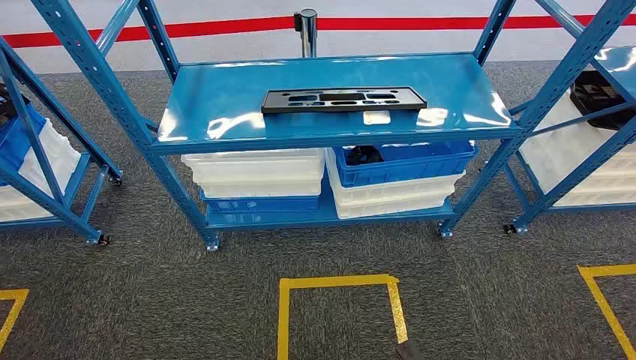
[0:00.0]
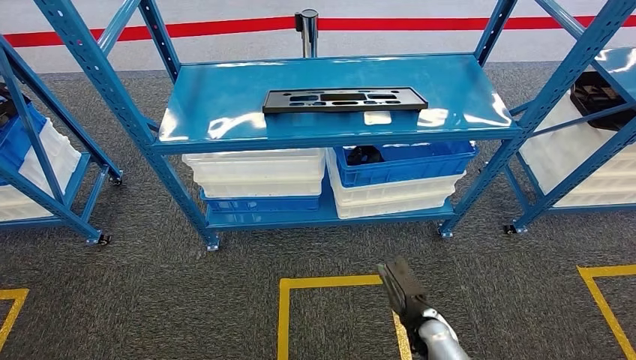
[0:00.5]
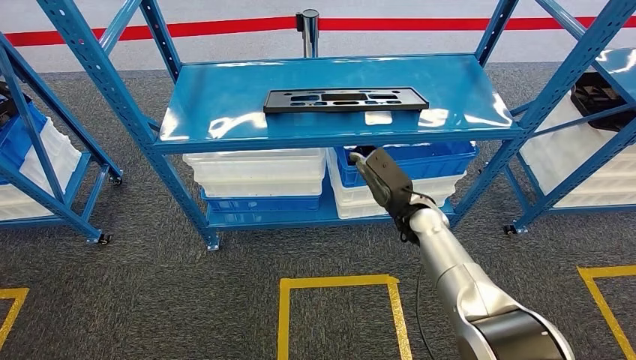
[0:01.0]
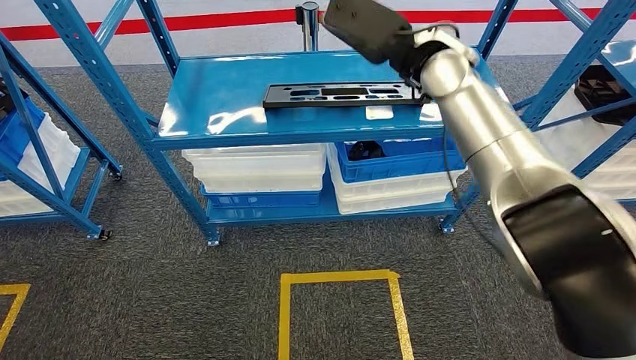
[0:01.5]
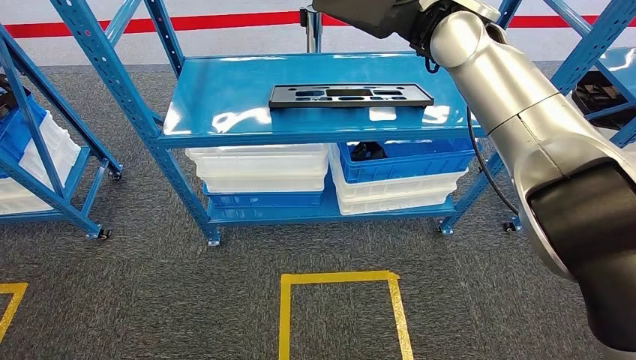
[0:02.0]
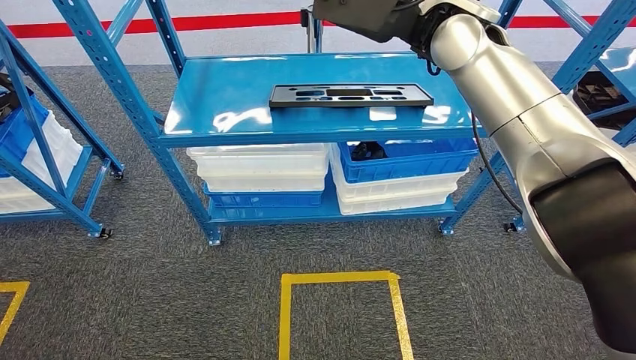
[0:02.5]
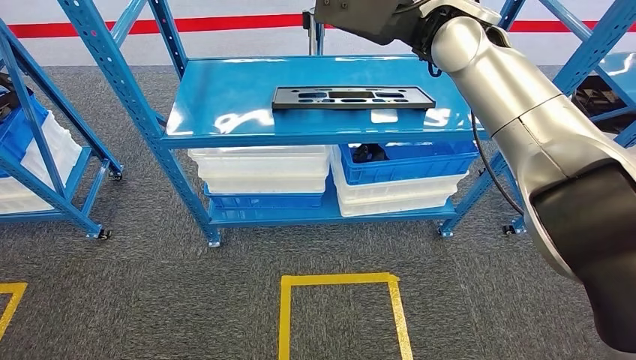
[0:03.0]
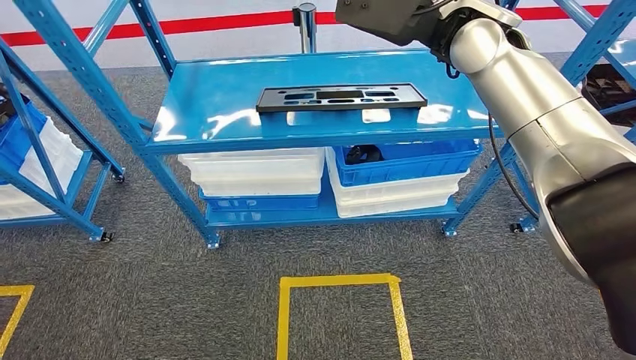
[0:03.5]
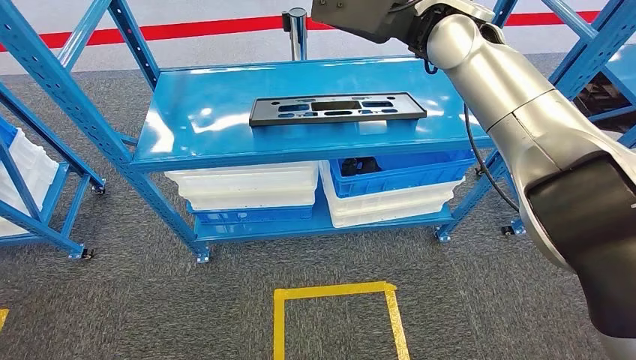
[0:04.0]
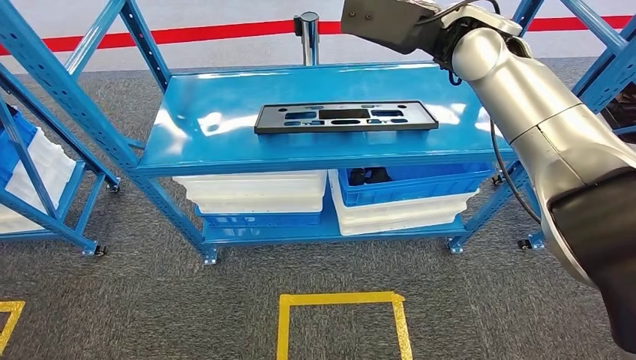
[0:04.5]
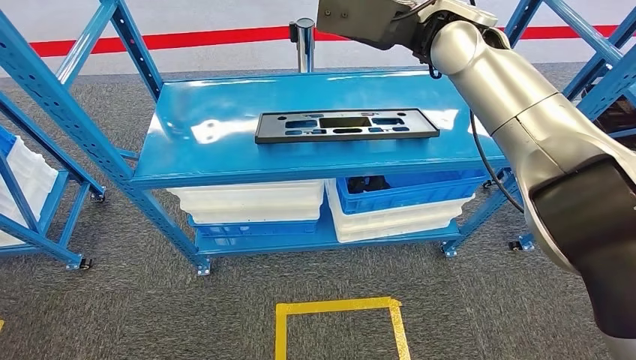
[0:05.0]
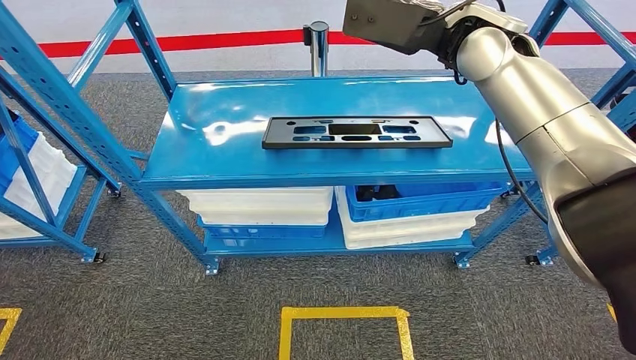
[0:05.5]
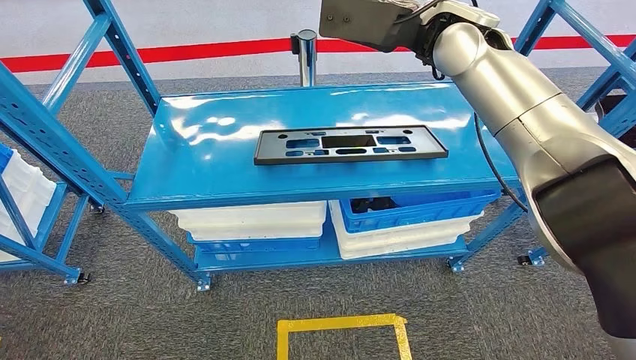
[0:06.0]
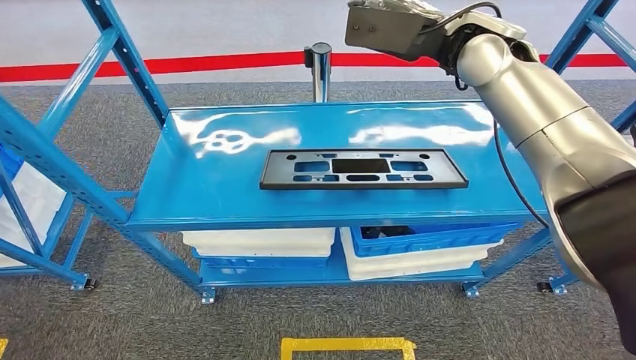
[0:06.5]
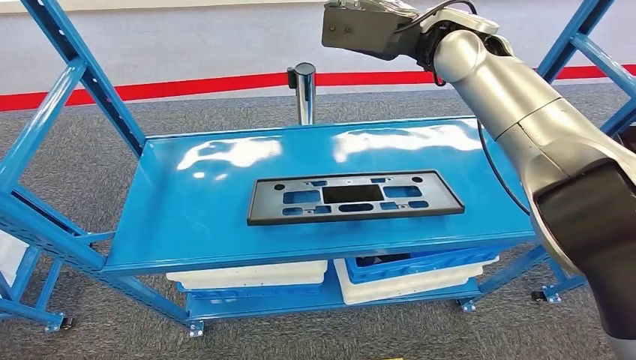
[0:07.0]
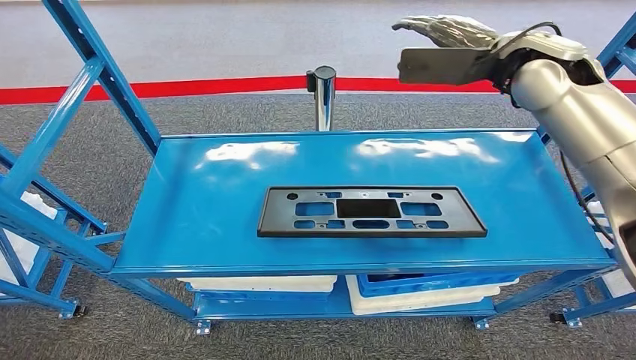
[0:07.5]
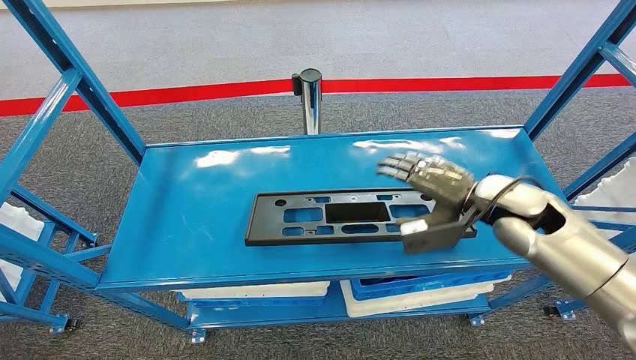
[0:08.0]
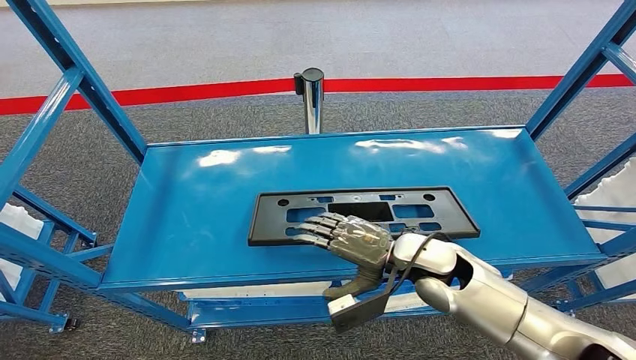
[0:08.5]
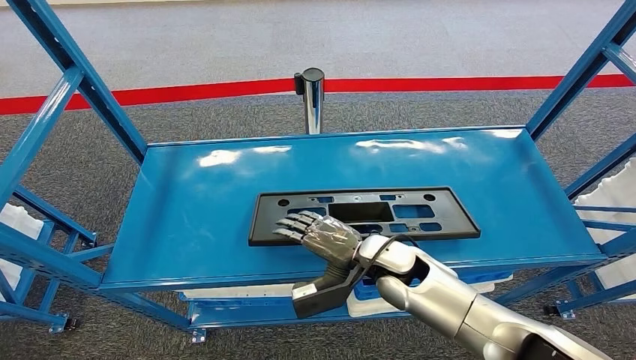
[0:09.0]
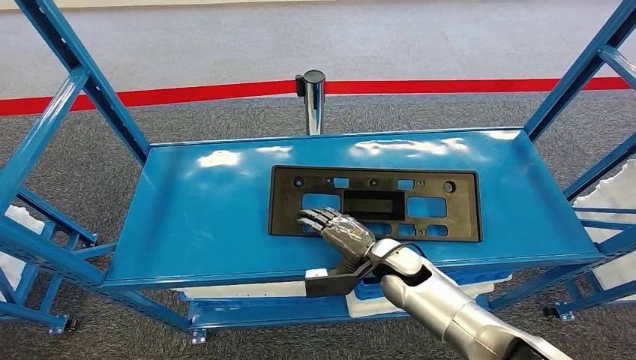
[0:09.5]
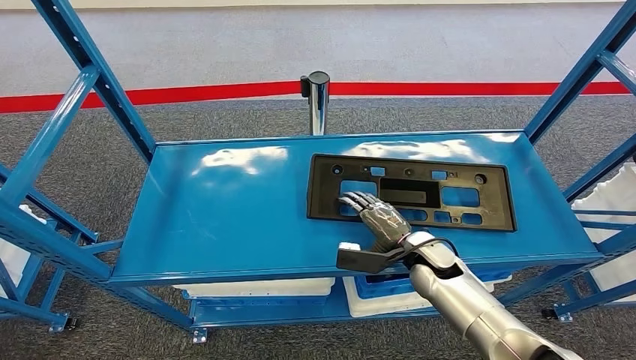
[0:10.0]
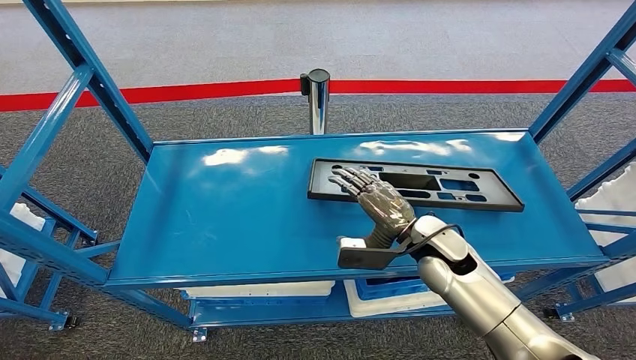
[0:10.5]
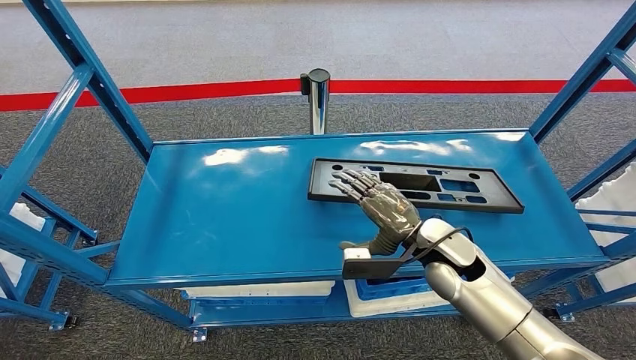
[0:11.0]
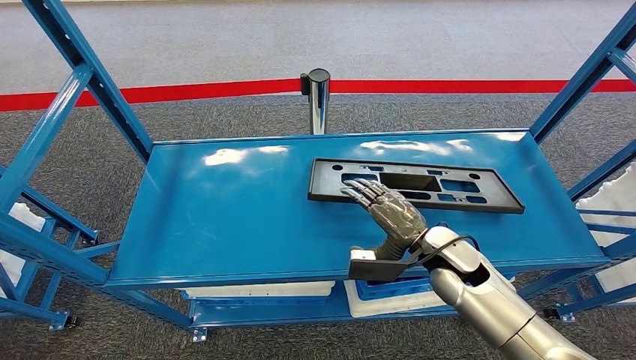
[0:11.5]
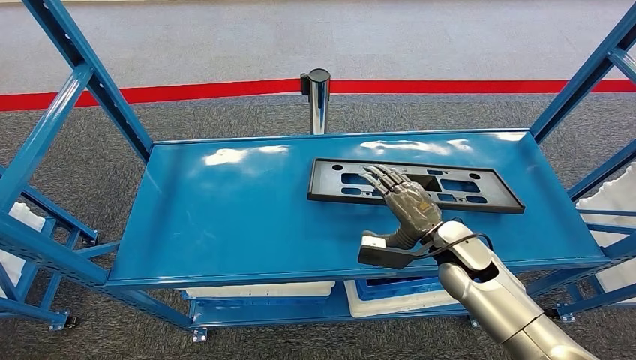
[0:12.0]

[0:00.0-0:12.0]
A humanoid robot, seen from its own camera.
Step, 0:00.0 to 0:00.5: Move the large material to the workbench.

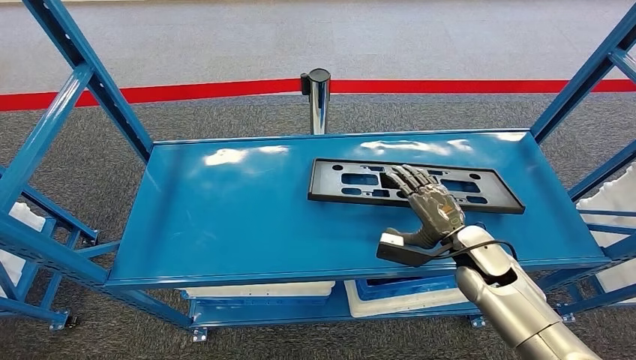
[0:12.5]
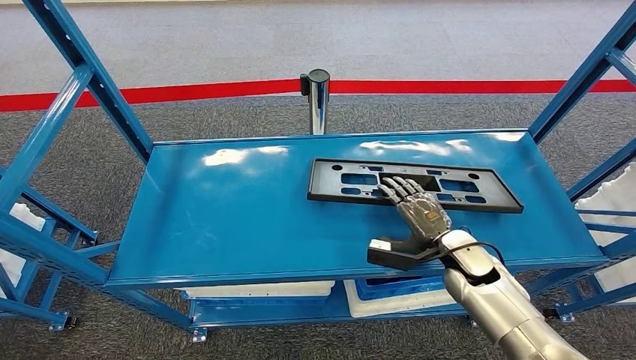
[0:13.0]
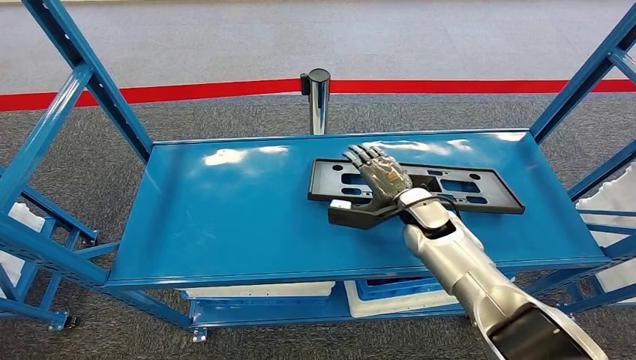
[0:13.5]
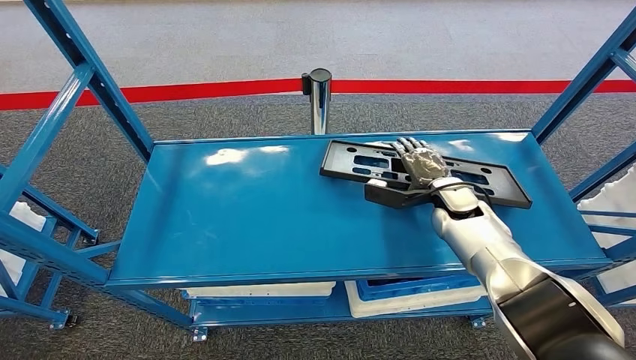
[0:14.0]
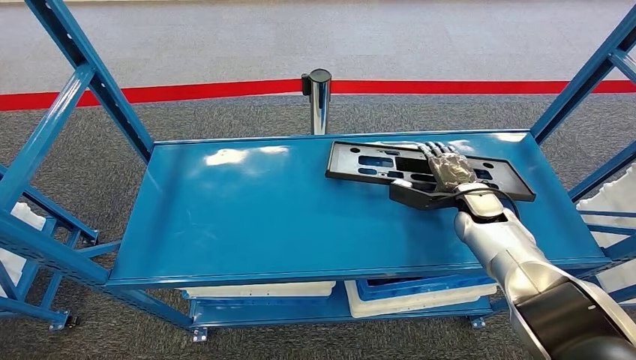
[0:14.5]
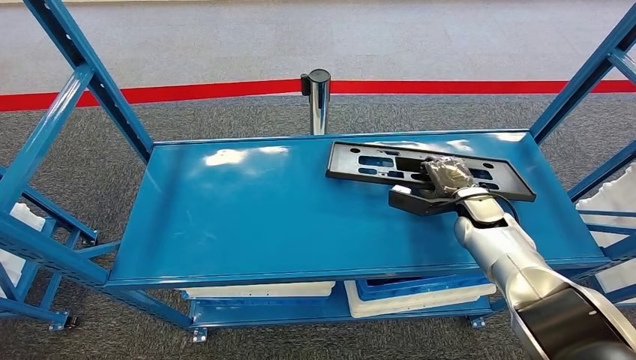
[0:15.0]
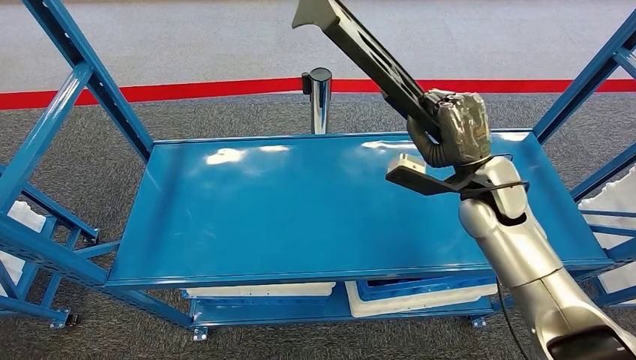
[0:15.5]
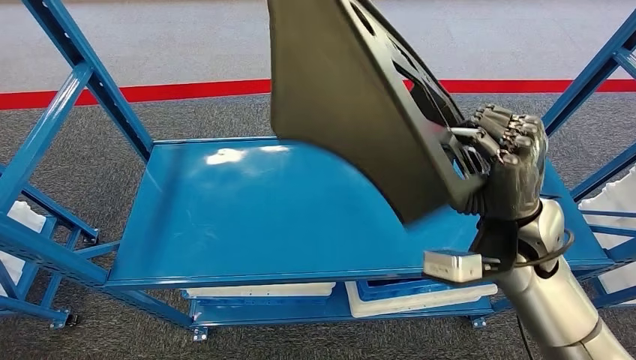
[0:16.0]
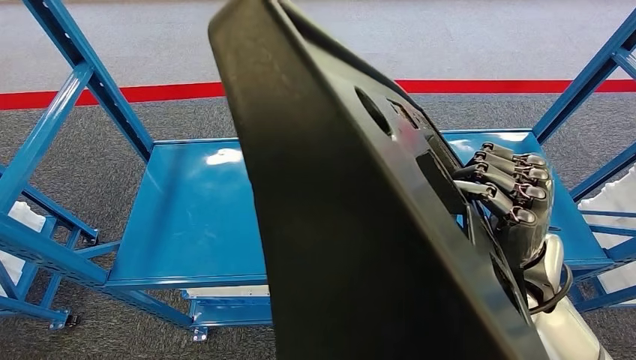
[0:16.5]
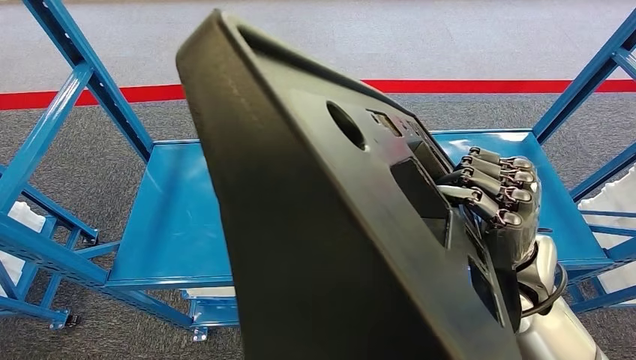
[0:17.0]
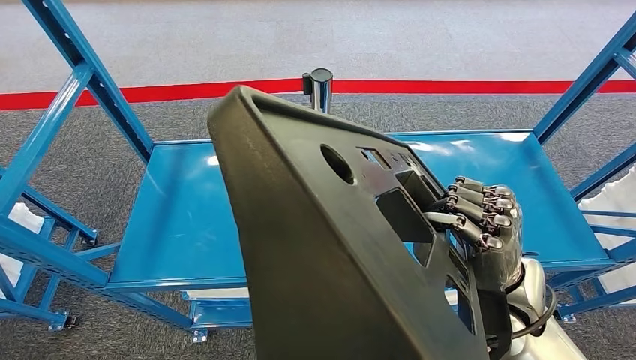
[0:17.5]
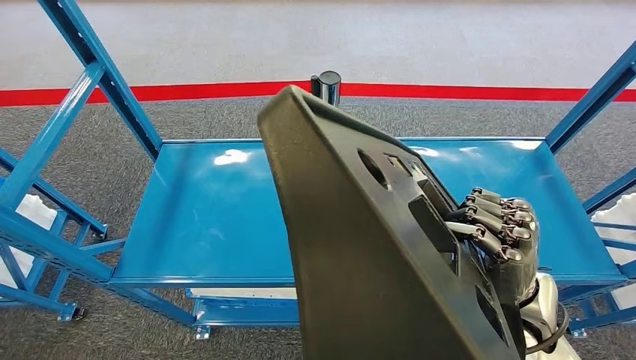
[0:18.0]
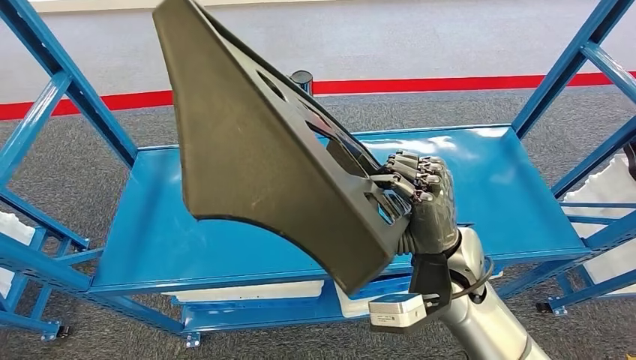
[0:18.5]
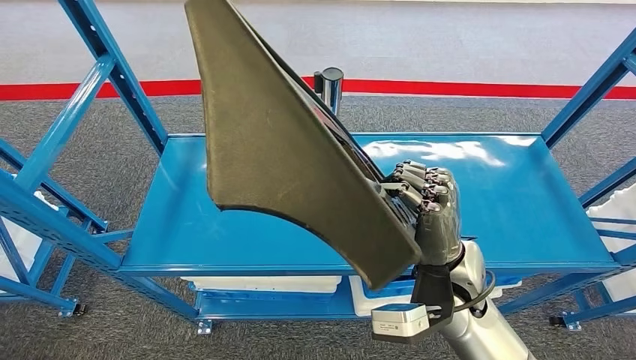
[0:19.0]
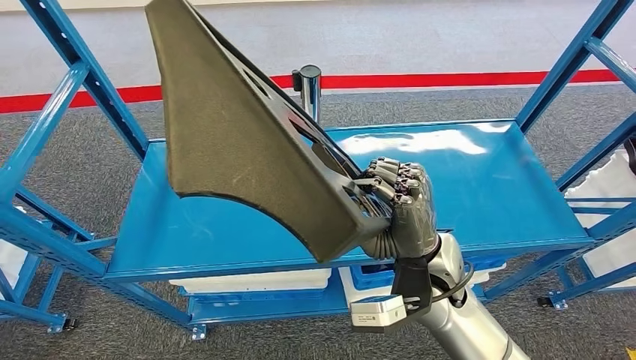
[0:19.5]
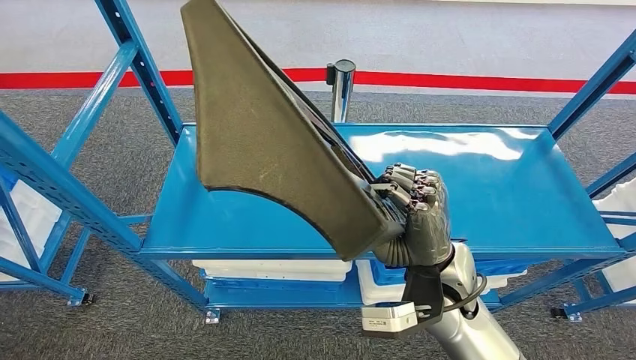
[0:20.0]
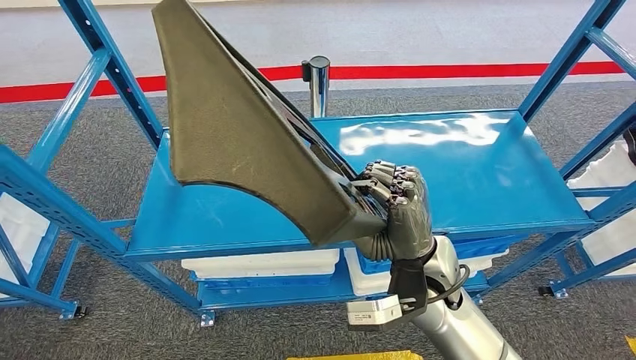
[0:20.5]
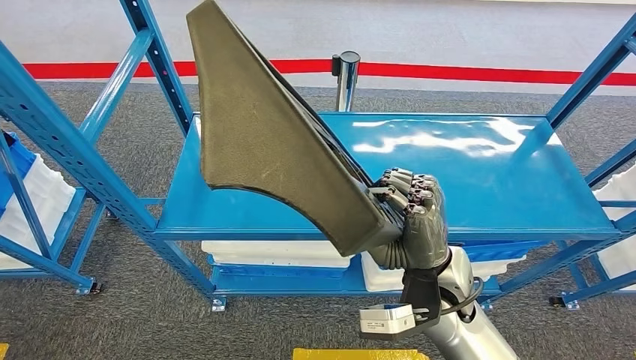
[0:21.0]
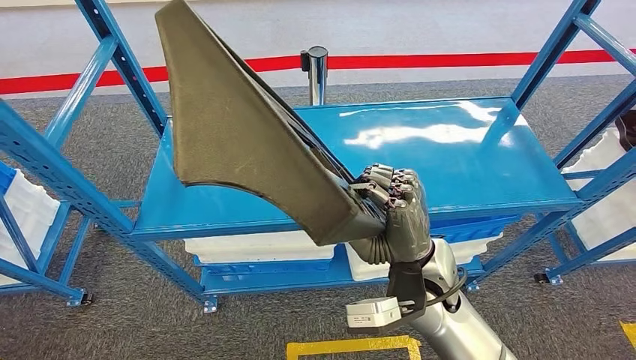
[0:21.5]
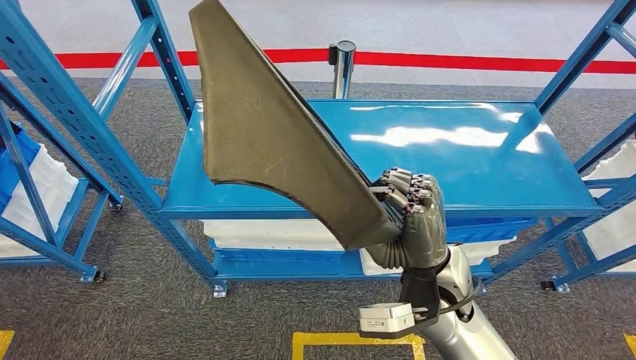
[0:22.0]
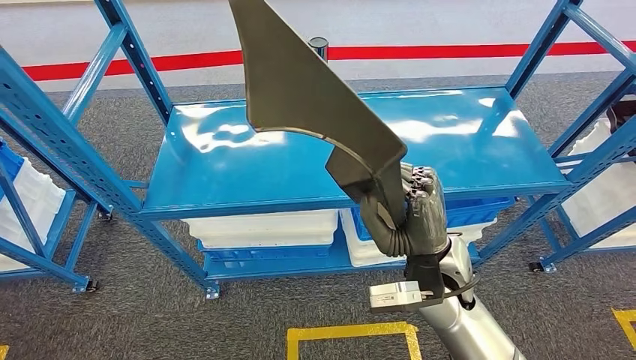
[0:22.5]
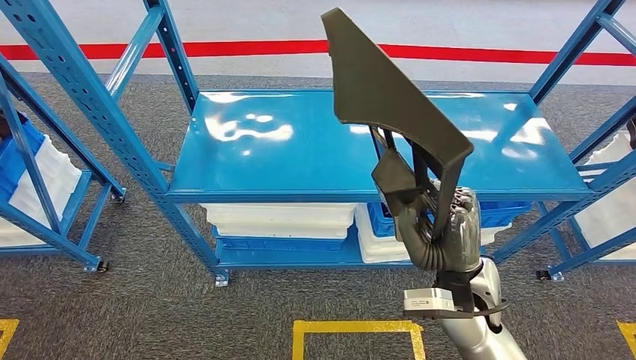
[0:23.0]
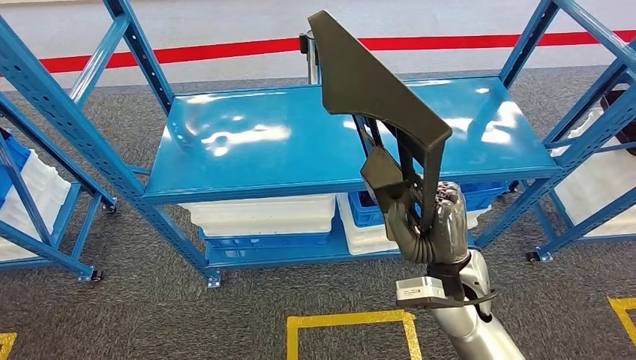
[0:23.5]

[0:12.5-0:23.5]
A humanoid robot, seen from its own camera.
Step, 0:12.5 to 0:19.0: Pick up the large material from the shelf.
0:12.5 to 0:14.5: The right hand is displaced forward by roughly 10 cm, and goes to the left and returns, roughly 10 cm each way.
